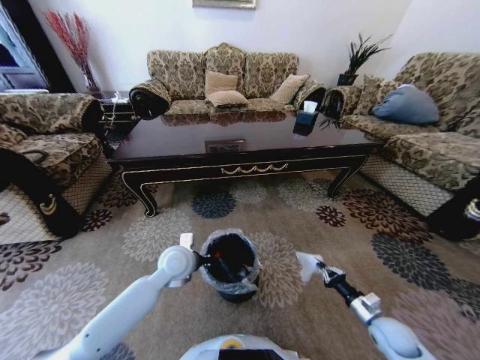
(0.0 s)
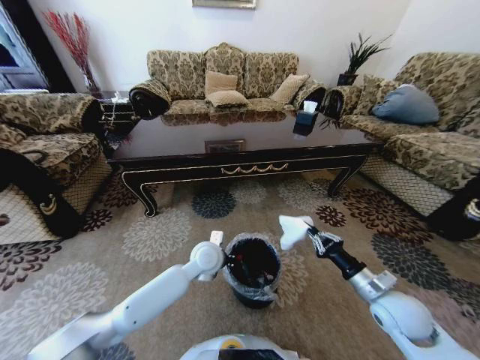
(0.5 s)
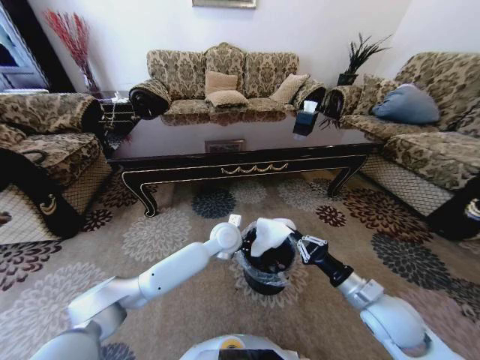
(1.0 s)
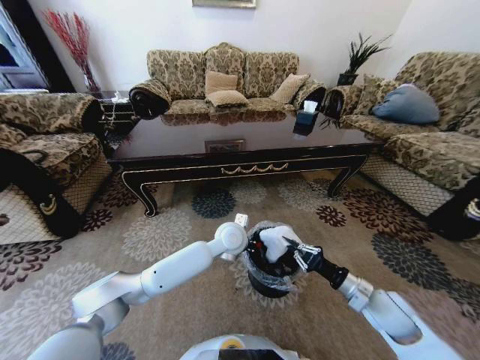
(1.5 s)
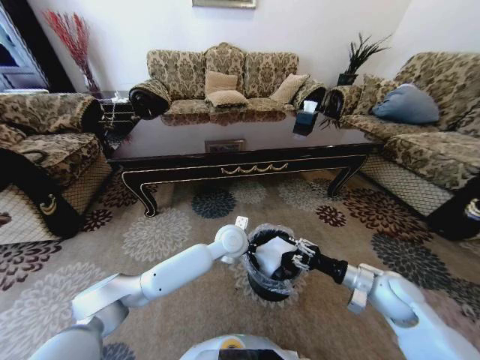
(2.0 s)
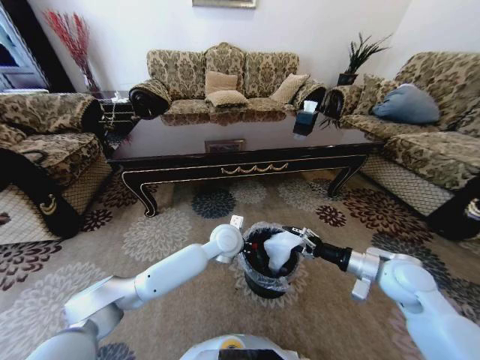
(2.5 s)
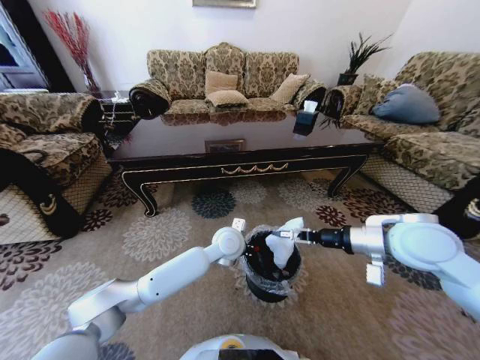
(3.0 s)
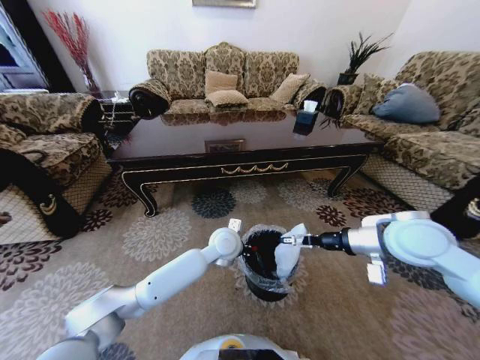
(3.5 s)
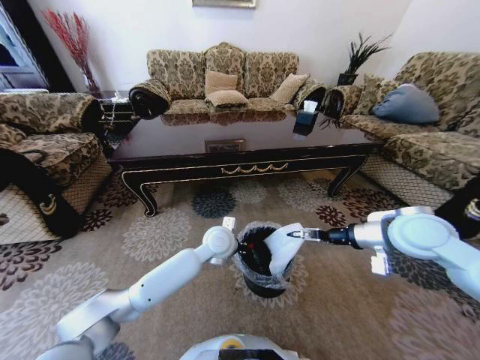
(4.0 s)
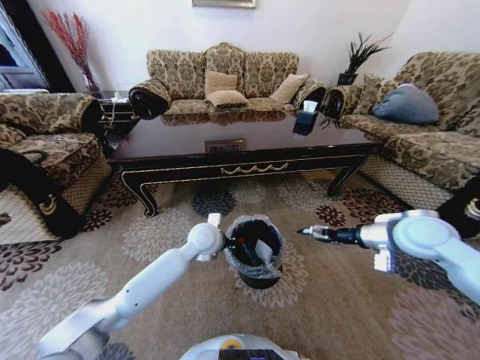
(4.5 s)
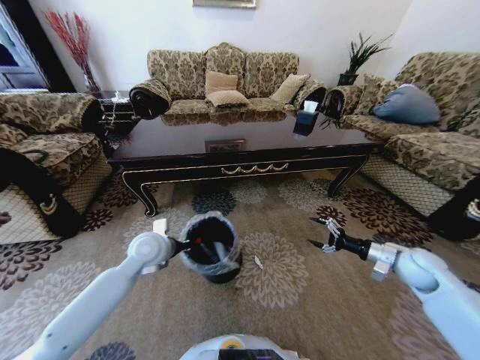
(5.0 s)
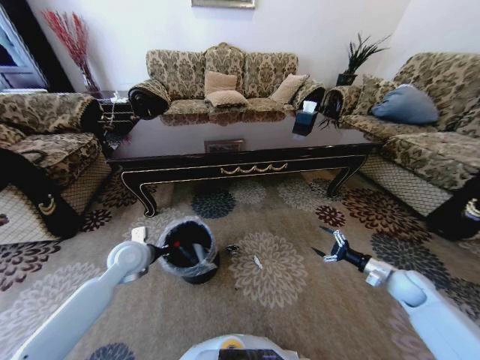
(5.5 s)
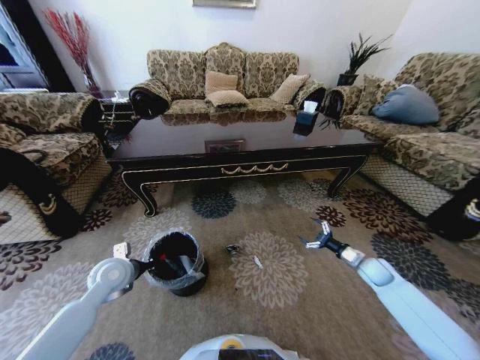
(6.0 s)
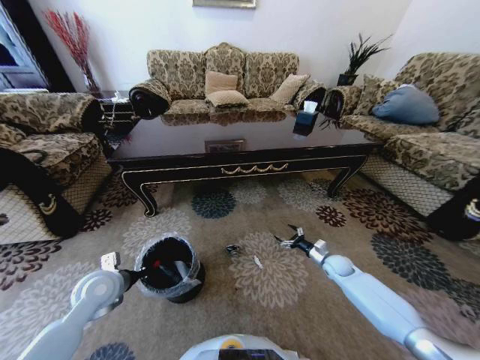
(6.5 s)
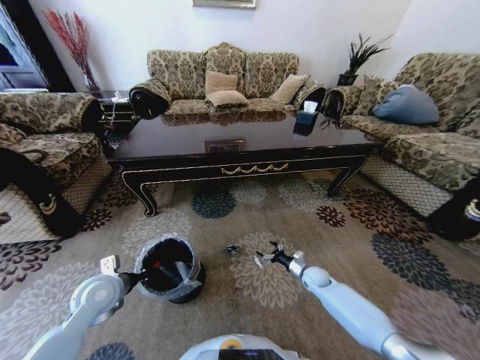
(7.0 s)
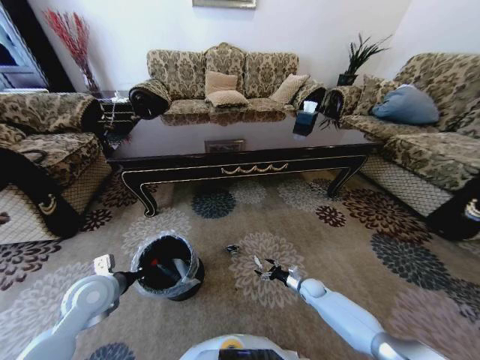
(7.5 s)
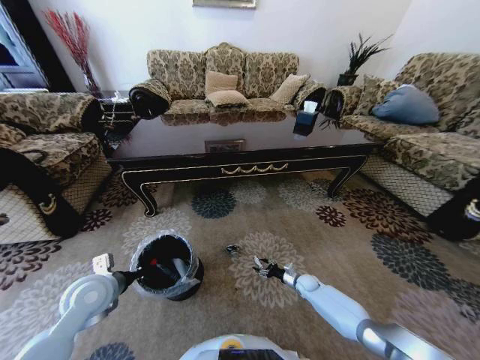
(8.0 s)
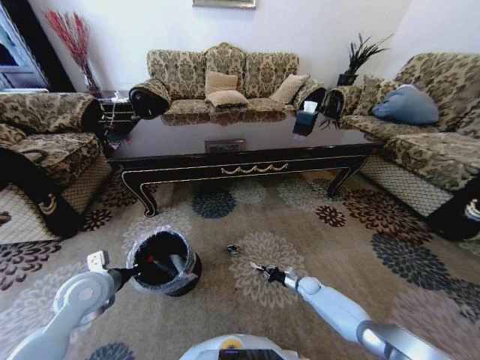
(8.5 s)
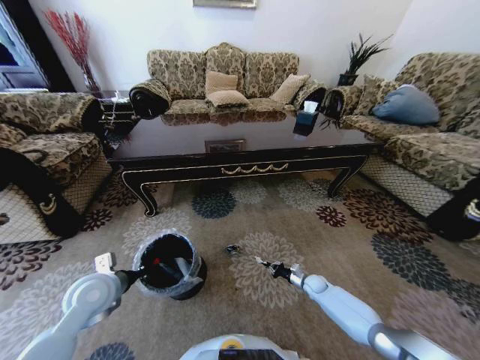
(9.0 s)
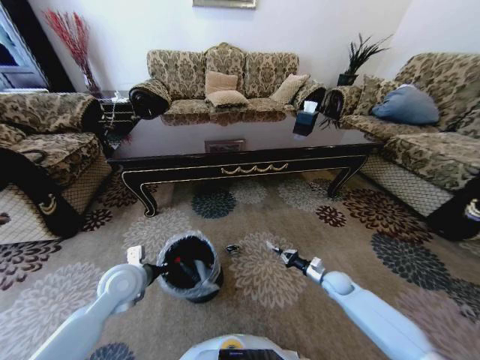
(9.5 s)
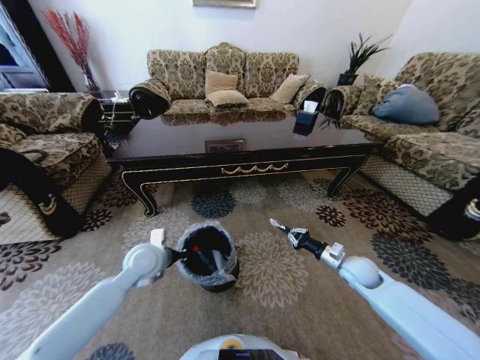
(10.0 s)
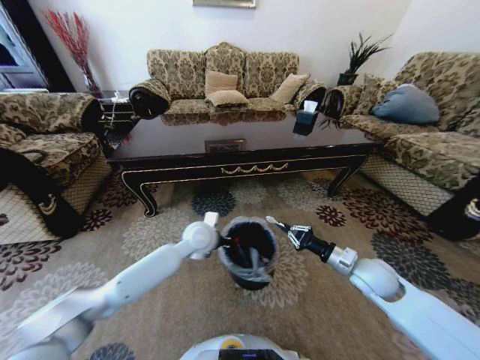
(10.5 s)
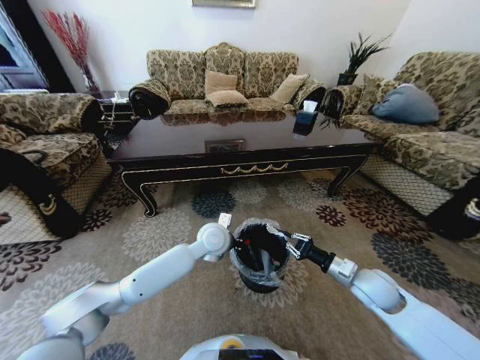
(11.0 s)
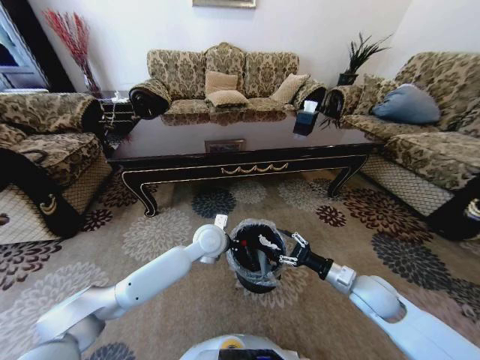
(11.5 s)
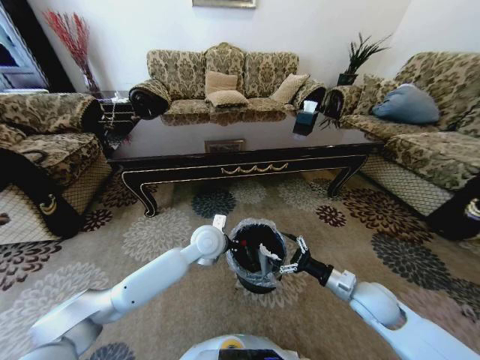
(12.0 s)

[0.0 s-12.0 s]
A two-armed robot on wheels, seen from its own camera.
Task of the whole recording: Move to the front of the table and pick up the trash from the floor, then place it into the trash bin.
0.0 to 2.0 s: The left gripper travels to the right by approximately 15 cm. Meanwhile the right gripper moves upward and forward, approximately 15 cm, and opens its fingers.
2.0 to 4.0 s: The right gripper moves upward, some 15 cm, and opens.
4.0 to 6.0 s: The left gripper goes roughly 30 cm to the left. The right gripper moves downward and to the right, approximately 30 cm.
6.0 to 8.0 s: The right gripper travels downward and to the left by approximately 25 cm, while the left gripper is displaced backward by roughly 5 cm.
8.0 to 10.0 s: The left gripper goes approximately 15 cm to the right and forward, while the right gripper heads upward, covering approximately 25 cm, and closes.
10.0 to 12.0 s: The left gripper moves to the right, roughly 15 cm; the right gripper shifts roughly 10 cm backward, and opens up.

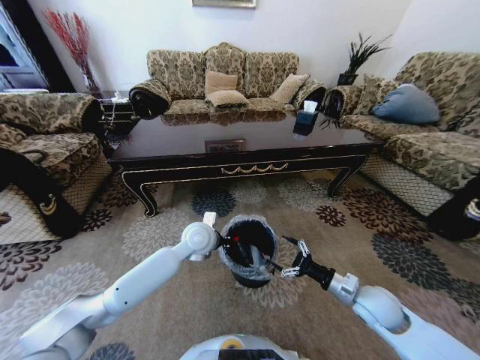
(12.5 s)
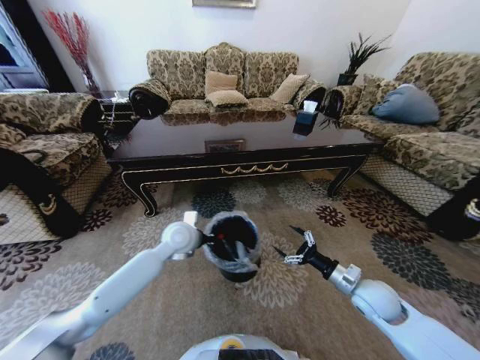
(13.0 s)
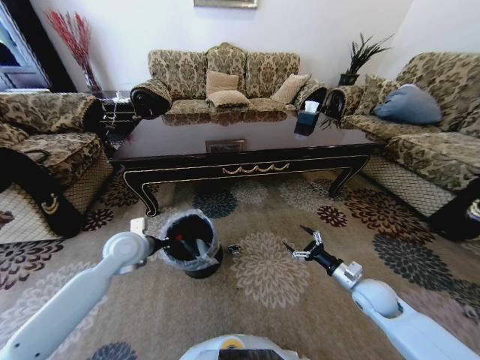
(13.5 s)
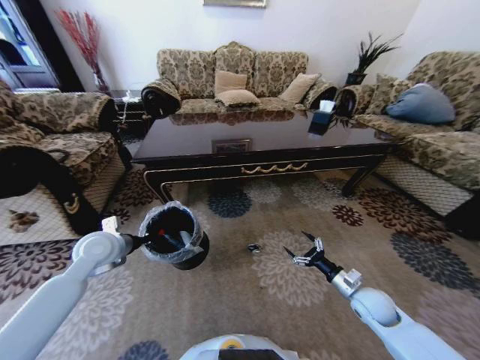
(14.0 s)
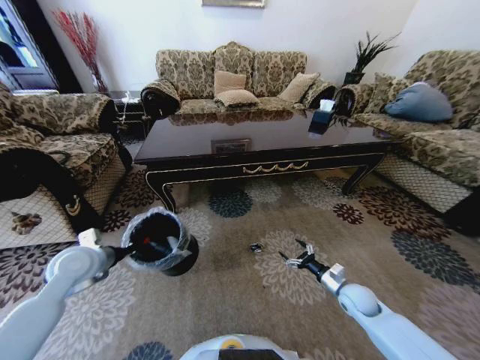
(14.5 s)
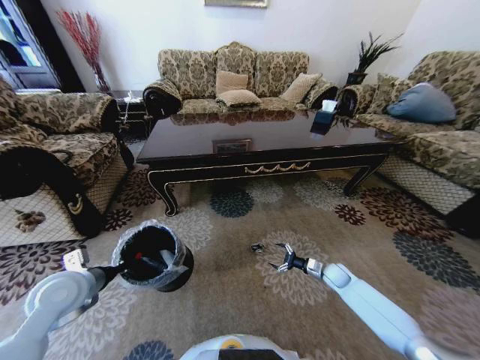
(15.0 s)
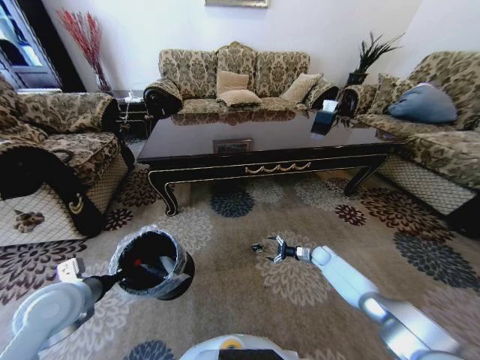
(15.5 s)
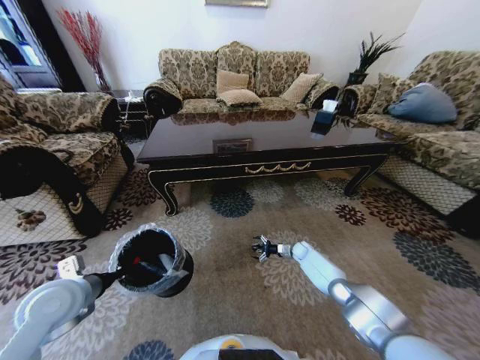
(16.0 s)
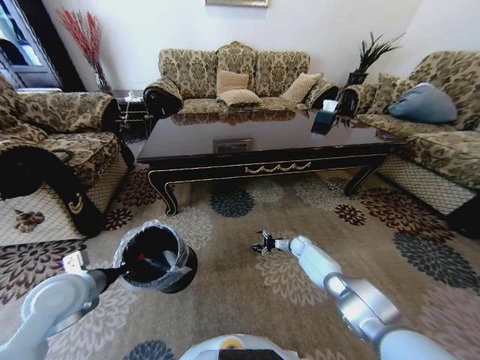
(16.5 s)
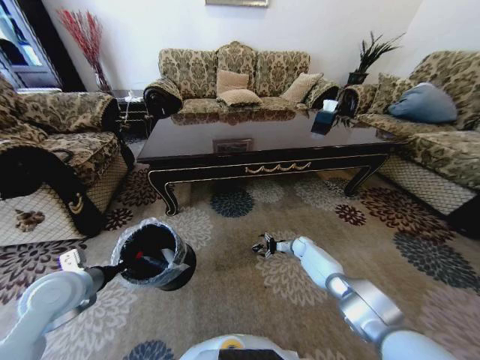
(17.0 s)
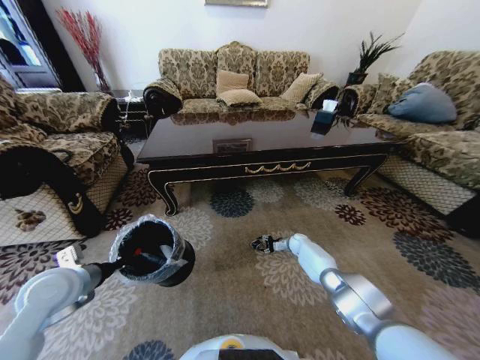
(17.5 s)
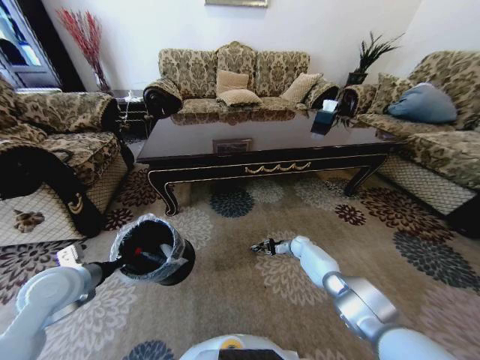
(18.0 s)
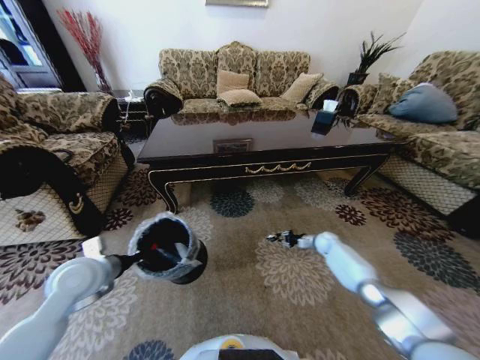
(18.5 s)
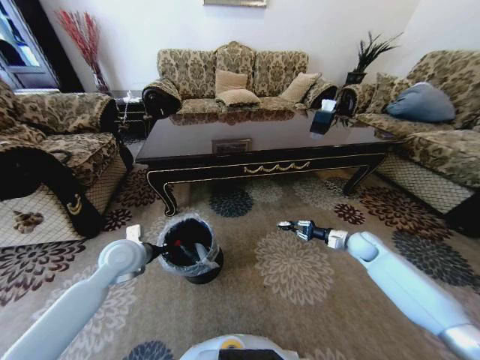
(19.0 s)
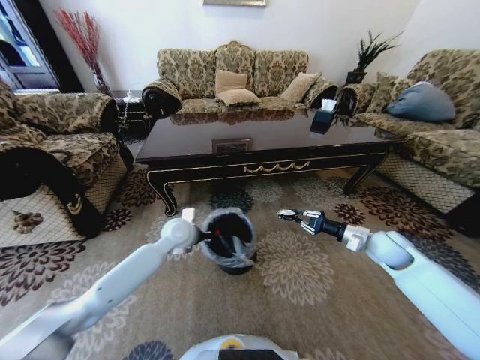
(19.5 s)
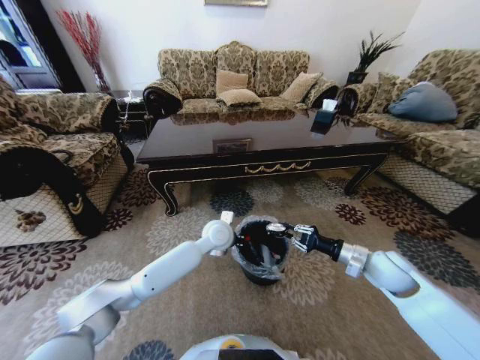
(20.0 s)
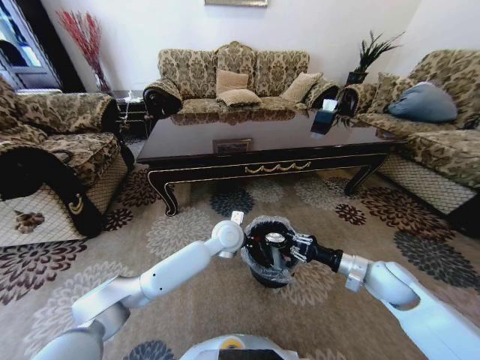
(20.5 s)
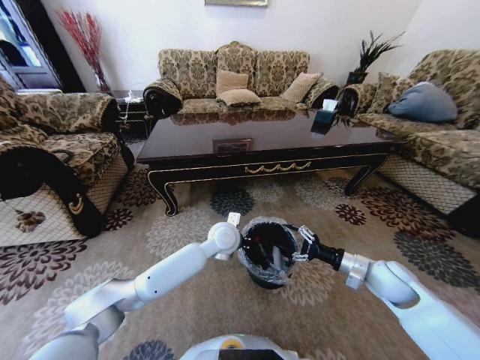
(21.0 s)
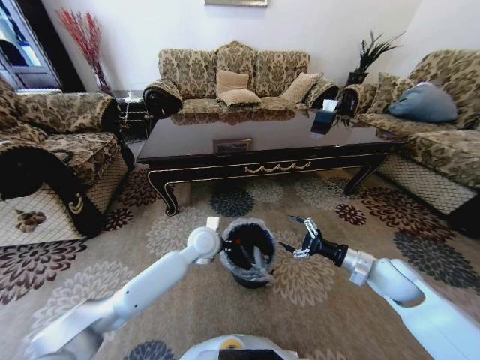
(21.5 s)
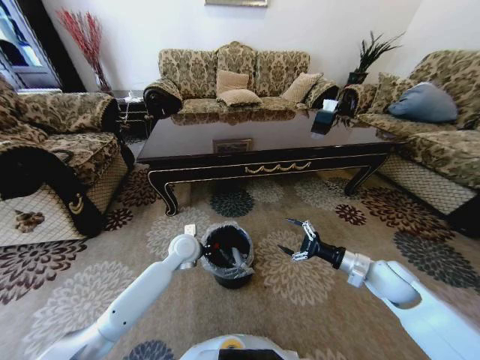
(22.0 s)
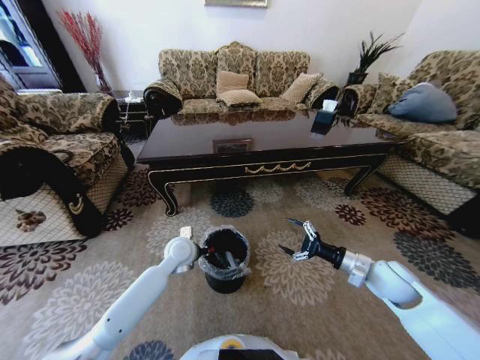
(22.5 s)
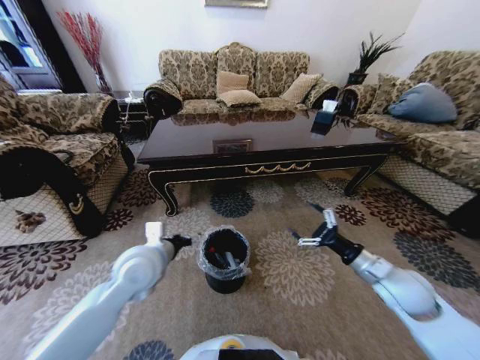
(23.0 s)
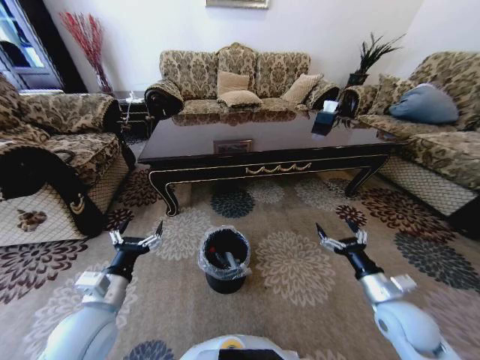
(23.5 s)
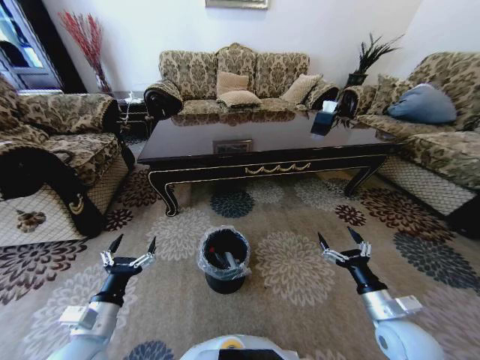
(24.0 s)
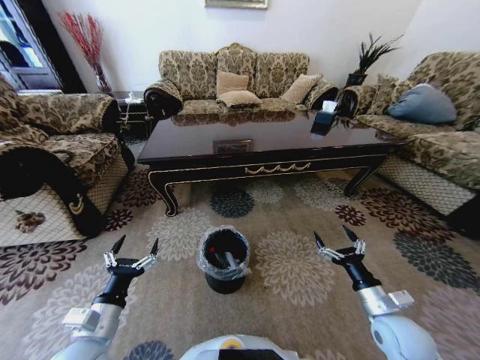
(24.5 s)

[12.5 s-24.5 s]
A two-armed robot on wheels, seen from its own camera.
Task of the whole recording: Move to the front of the table and pick up the trash from the floor, then place it into the trash bin.
12.5 to 14.5 s: The left gripper is displaced to the left by about 30 cm; the right gripper shifts about 10 cm downward.
14.5 to 16.5 s: The right gripper moves forward, some 25 cm. The left gripper travels backward by roughly 5 cm.
16.5 to 18.5 s: The right gripper moves to the right and upward, roughly 10 cm, and closes its fingers.
18.5 to 20.5 s: The left gripper heads to the right, covering some 35 cm. The right gripper goes approximately 30 cm backward and upward.
20.5 to 22.5 s: The right gripper opens its fingers. The left gripper moves to the left, about 15 cm.
22.5 to 24.5 s: The left gripper shifts some 30 cm backward and to the left, and opens. The right gripper moves backward and downward, about 10 cm.
